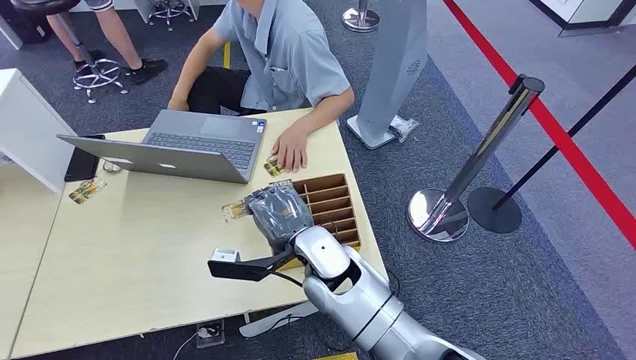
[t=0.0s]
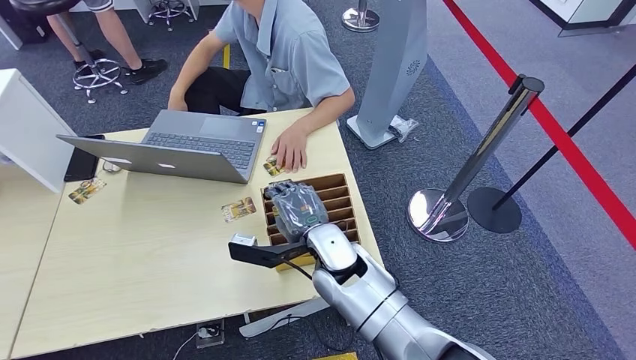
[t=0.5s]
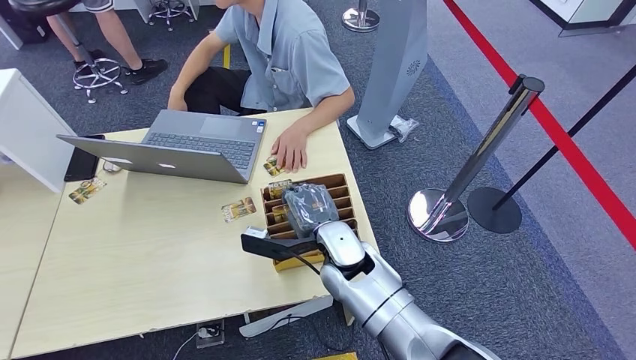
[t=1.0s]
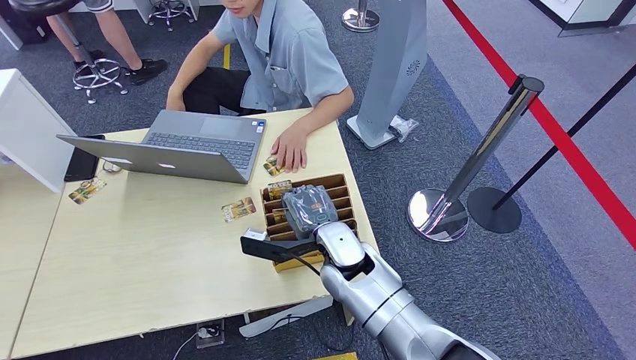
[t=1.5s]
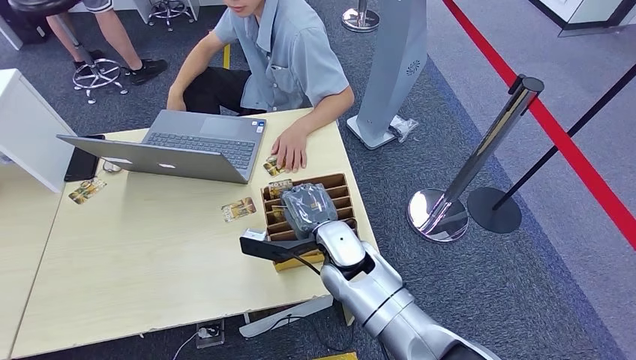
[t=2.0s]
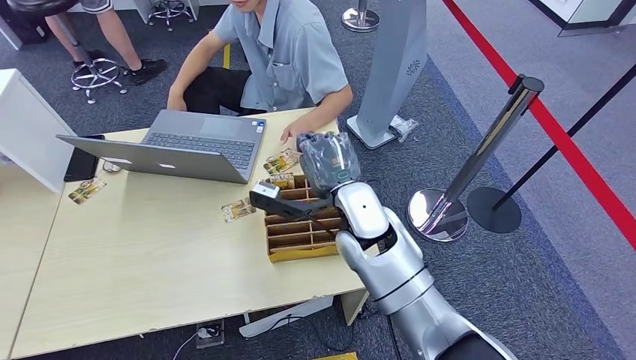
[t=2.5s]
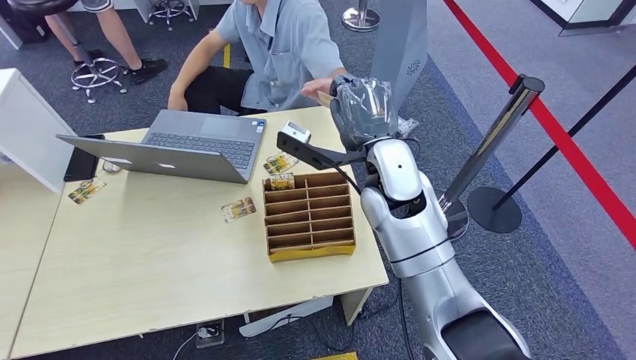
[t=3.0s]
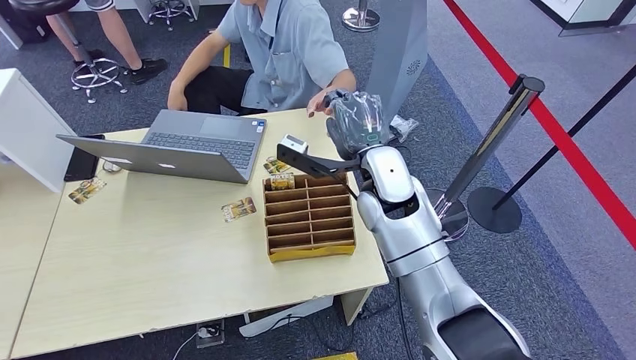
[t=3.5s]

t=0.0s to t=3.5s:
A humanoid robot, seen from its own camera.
Step, t=0.0s to t=2.0s: Pick up the key card from the card box.
t=2.0s to t=3.5s: The right hand travels upward, to the right and forward by some 15 cm.
